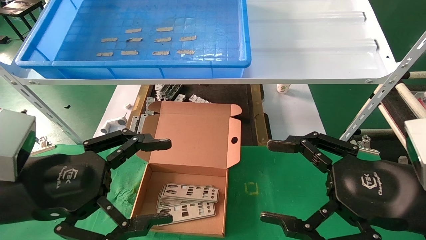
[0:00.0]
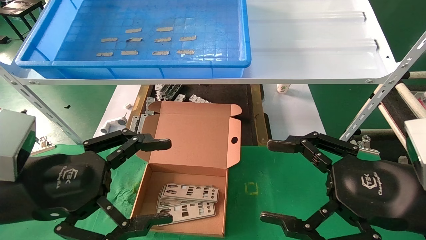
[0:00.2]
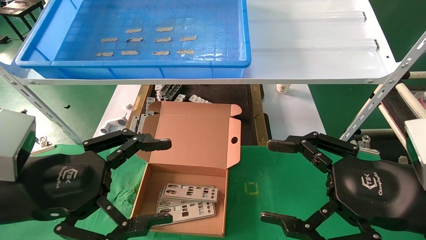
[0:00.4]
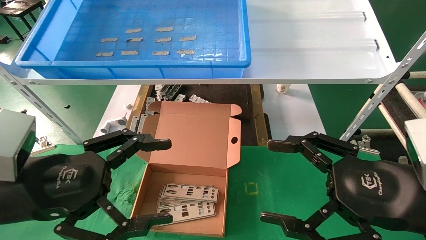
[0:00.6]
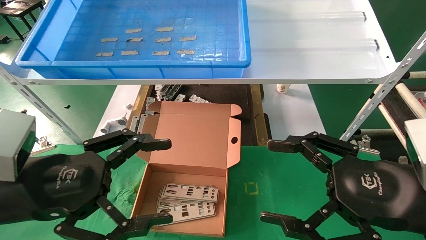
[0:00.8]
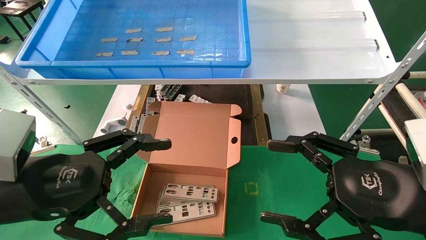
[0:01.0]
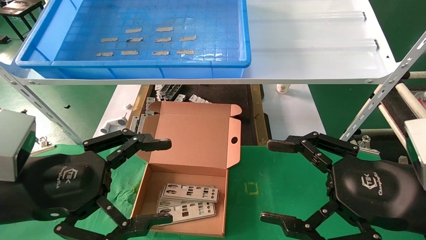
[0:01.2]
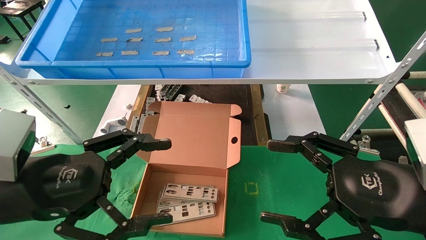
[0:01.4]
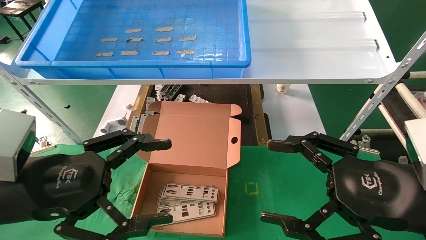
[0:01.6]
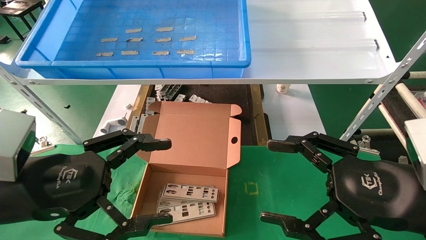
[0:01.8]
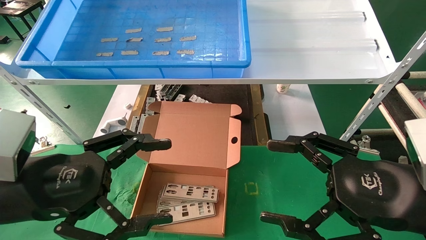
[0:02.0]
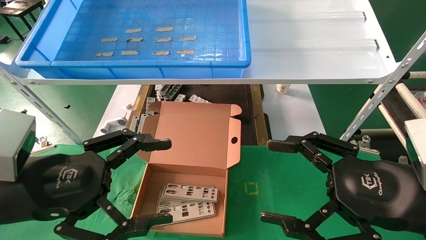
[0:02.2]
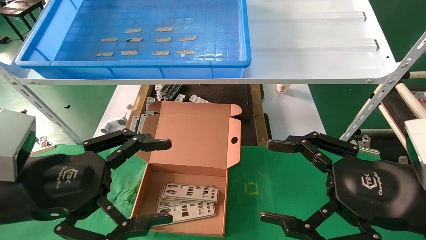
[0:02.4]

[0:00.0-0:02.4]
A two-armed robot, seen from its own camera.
Task of the whole recording: pick up the parts on the tray and put them in the cardboard box.
0:00.0 to 0:02.4: Both grippers stay about where they are.

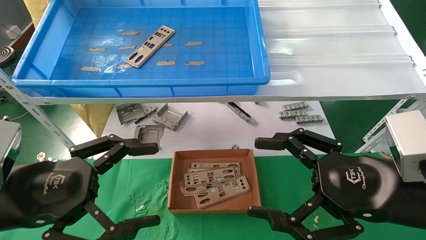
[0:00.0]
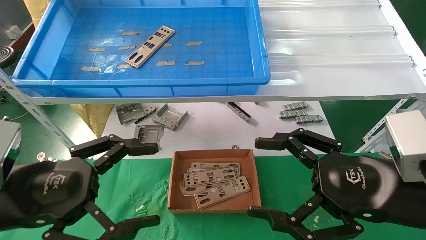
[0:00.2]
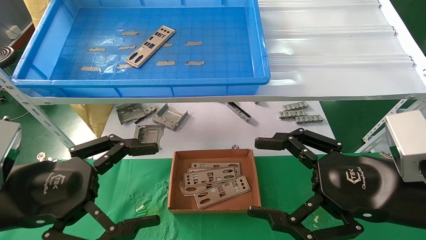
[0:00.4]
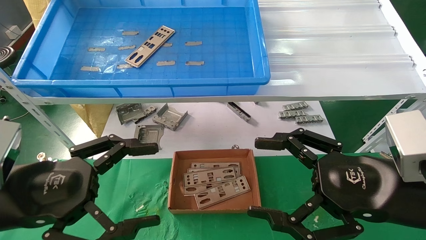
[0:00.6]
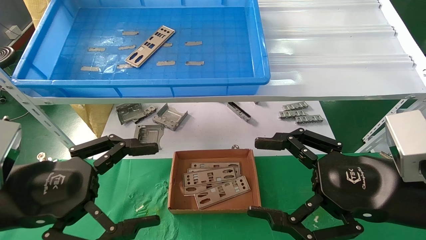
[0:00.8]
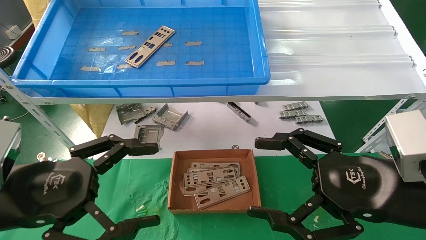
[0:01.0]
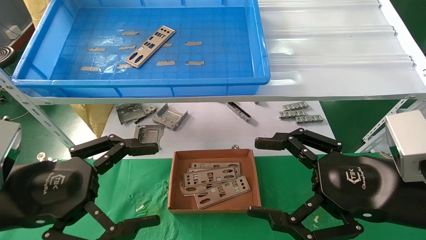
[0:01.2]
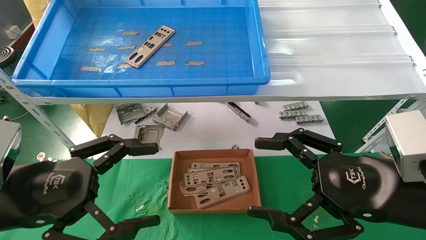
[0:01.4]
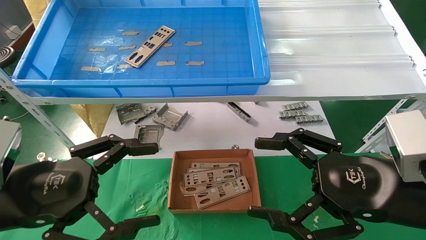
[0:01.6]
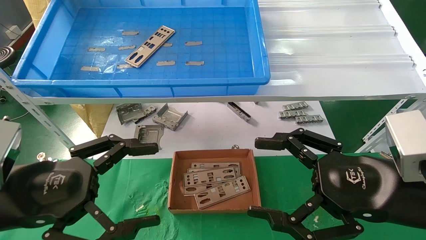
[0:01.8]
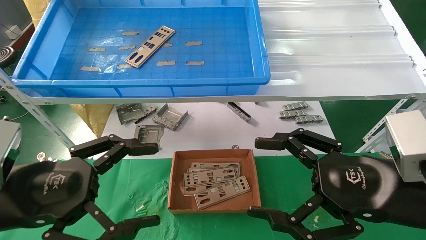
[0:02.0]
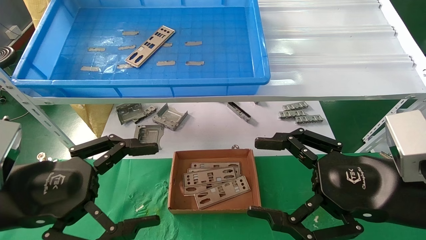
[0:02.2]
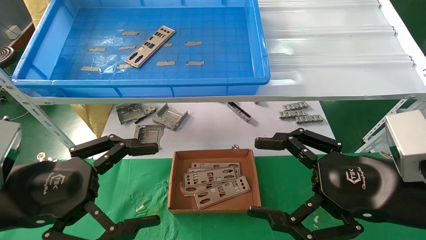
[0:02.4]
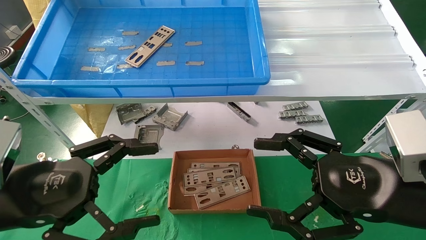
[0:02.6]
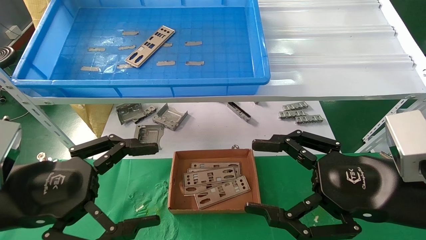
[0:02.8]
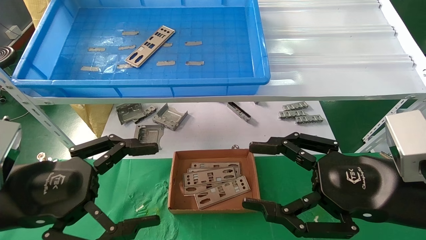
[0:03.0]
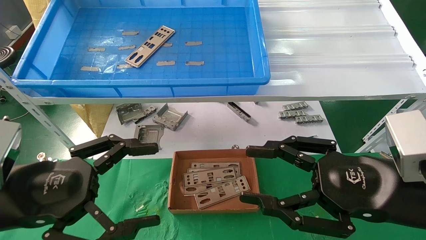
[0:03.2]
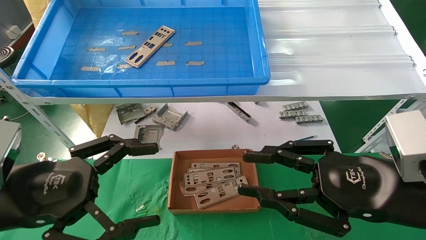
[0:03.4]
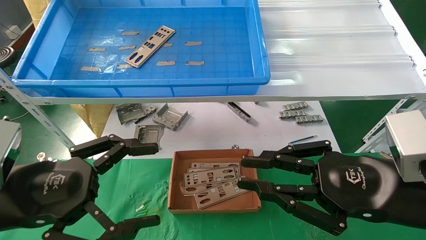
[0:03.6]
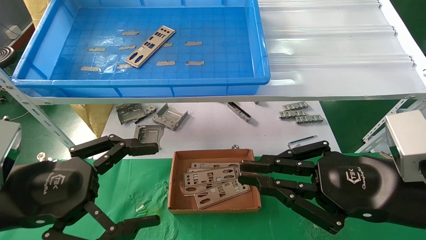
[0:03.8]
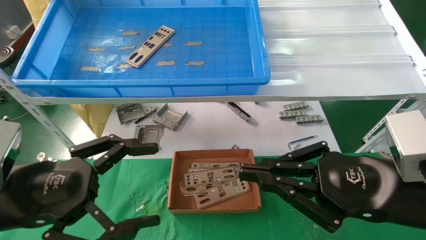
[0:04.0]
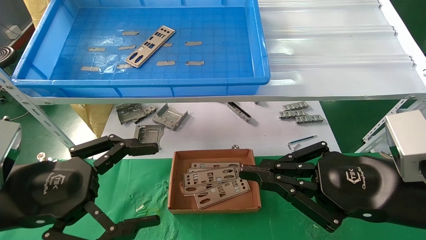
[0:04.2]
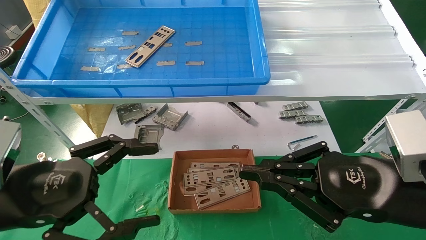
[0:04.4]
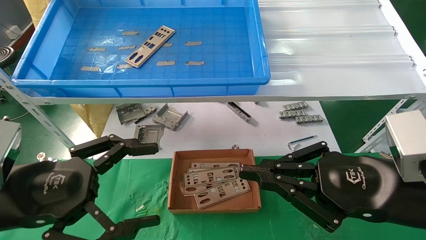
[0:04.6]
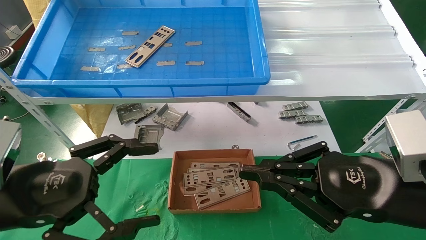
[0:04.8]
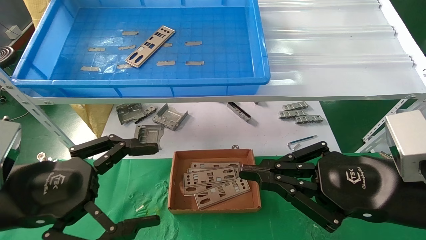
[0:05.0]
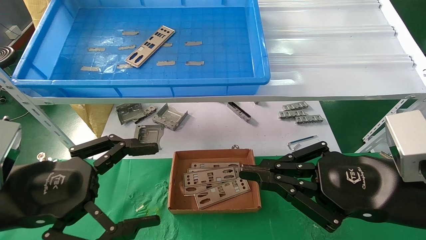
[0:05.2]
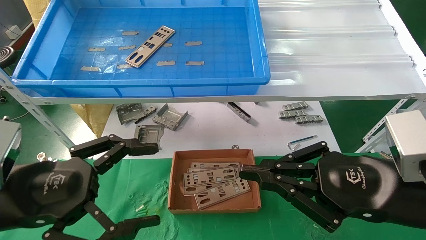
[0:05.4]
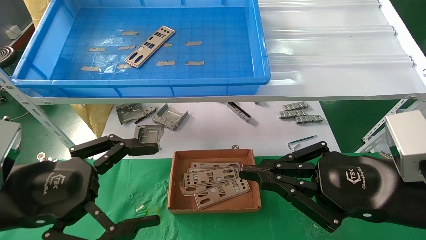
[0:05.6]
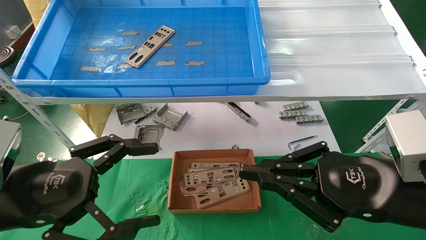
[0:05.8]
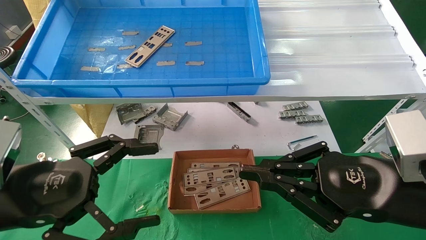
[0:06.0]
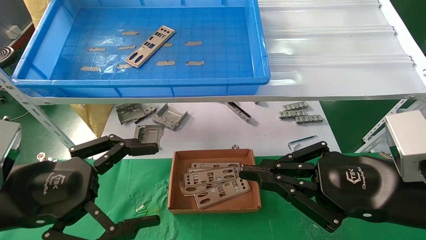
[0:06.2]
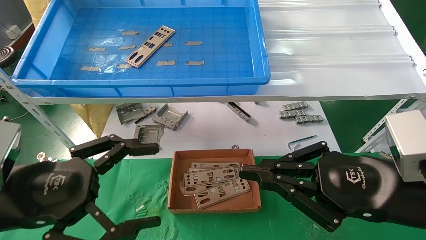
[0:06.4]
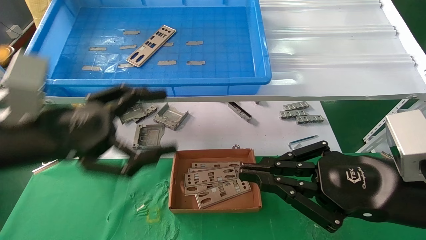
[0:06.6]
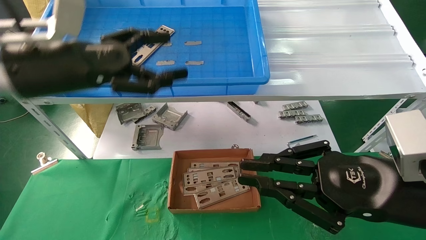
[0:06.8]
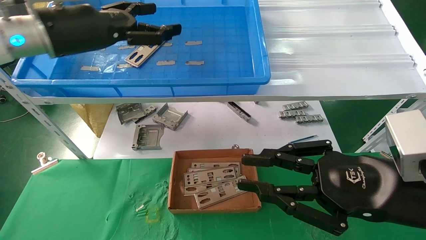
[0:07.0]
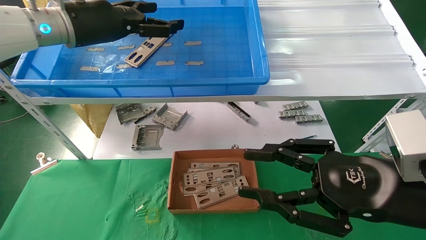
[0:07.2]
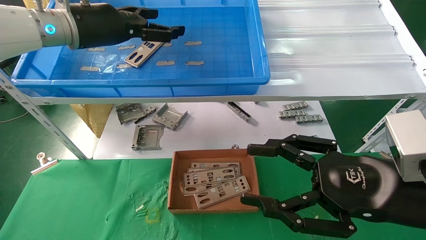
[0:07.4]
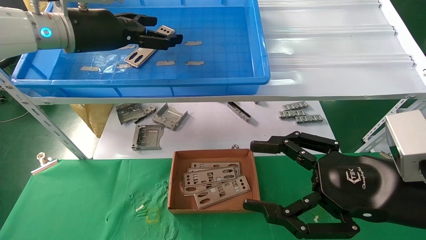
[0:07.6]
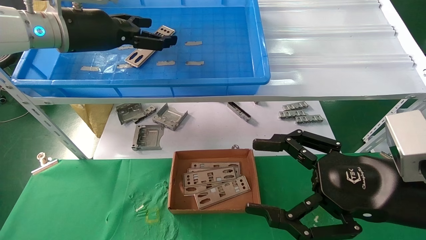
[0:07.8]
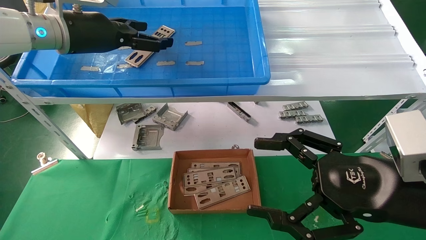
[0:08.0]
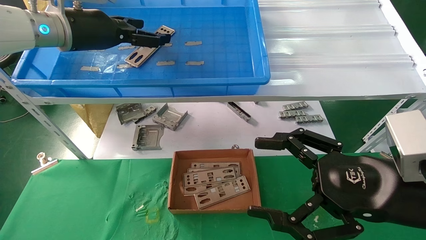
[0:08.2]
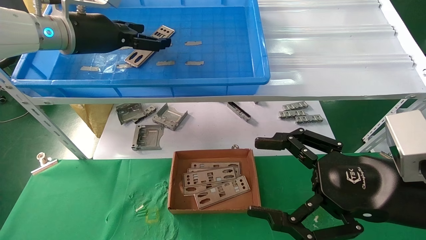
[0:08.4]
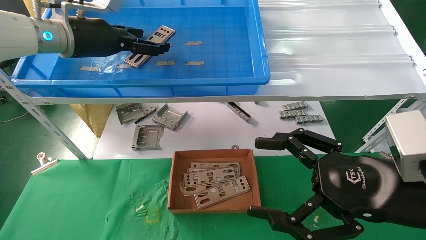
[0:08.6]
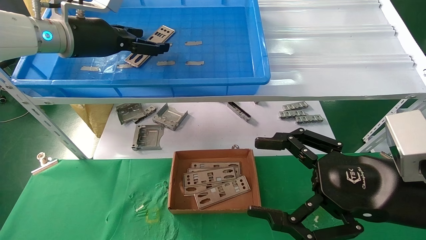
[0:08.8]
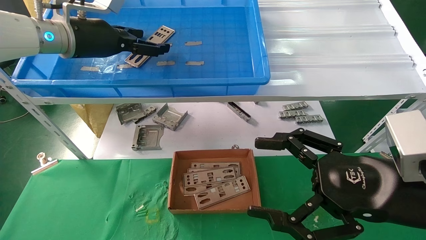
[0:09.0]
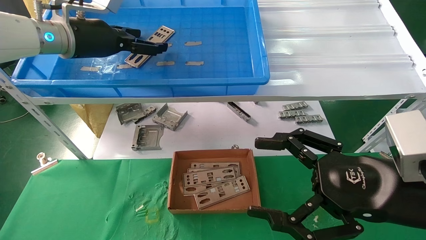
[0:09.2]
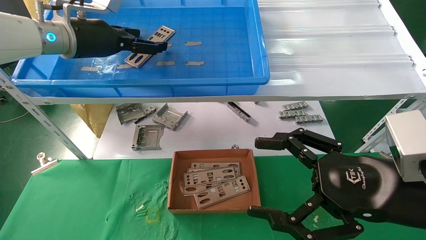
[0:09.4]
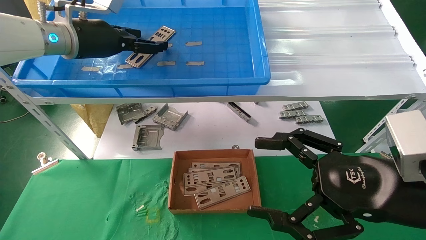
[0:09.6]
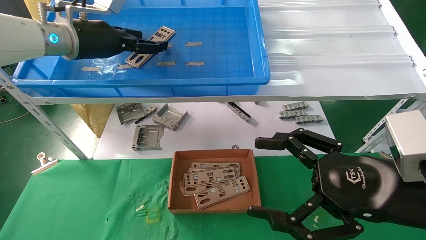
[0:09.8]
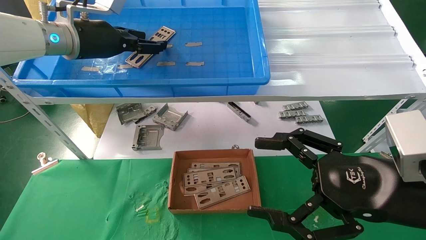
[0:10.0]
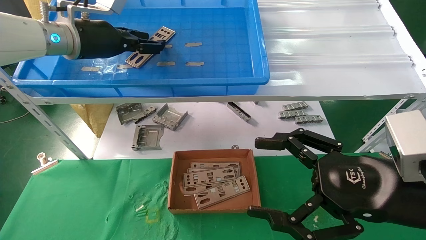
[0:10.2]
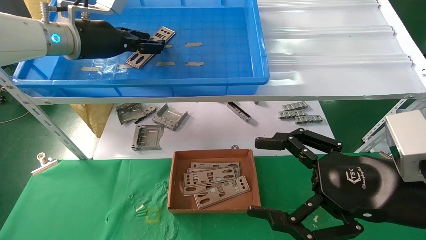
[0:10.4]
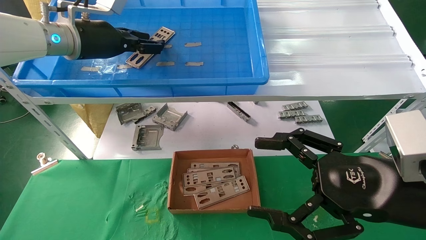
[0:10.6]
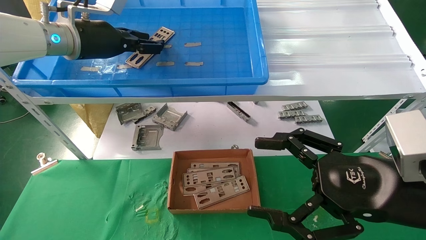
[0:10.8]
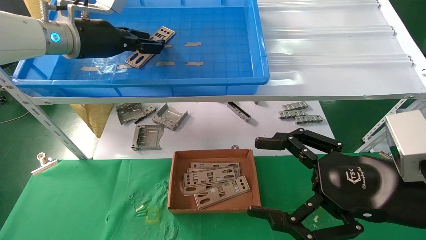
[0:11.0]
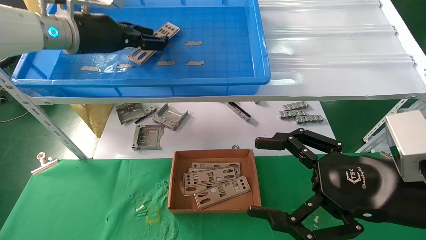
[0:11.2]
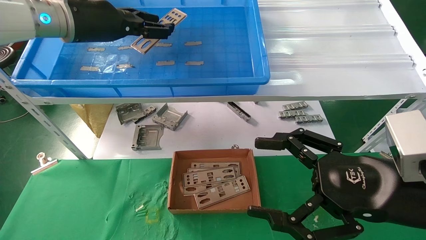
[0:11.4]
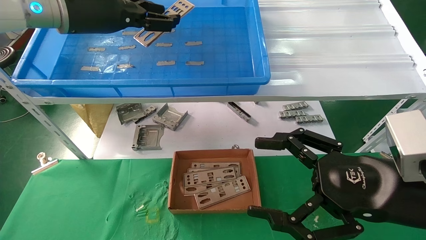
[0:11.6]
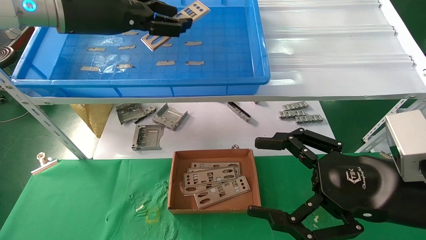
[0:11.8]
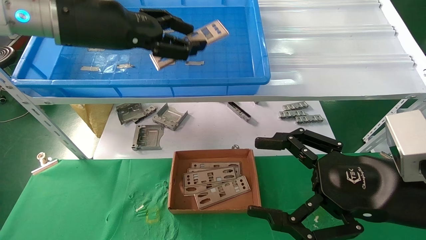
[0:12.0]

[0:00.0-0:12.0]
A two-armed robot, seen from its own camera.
Task of the whole recording: pick up the parts on the tray and put them in the cardboard box.
Step, 0:06.8 to 0:10.4: Pick up the IO bracket from the container box.
0:00.0 to 0:03.0: Neither gripper changes place.
0:03.0 to 0:04.4: The right gripper closes up.
0:04.4 to 0:06.0: Neither gripper changes place.
0:06.0 to 0:07.6: The left gripper moves forward and upward, roughly 30 cm. Meanwhile the right gripper opens its fingers.
0:07.6 to 0:09.0: The grippers stay close to where they were, moving slightly.
0:09.0 to 0:10.4: The left gripper closes.
0:10.4 to 0:12.0: The left gripper shifts some 10 cm backward.

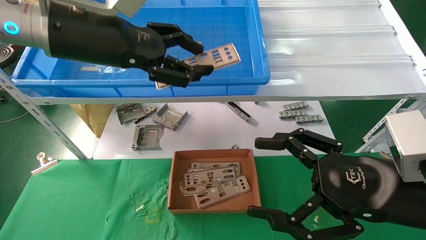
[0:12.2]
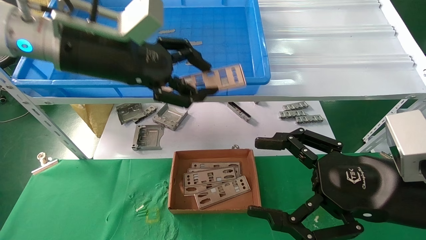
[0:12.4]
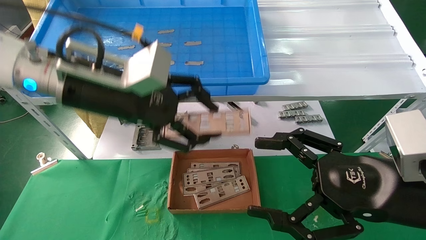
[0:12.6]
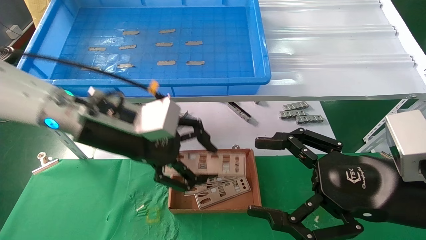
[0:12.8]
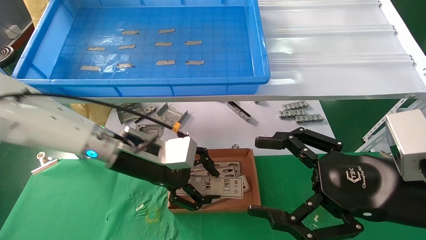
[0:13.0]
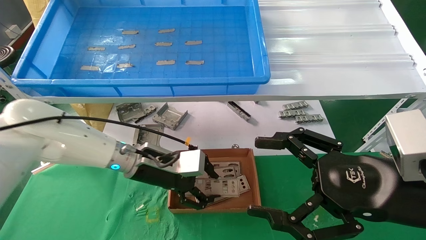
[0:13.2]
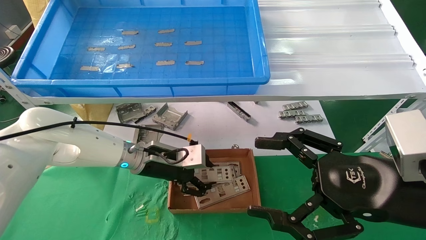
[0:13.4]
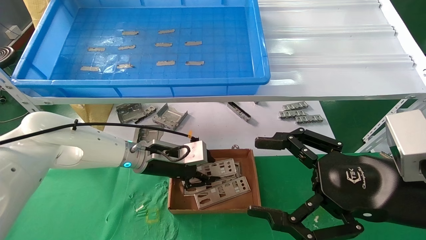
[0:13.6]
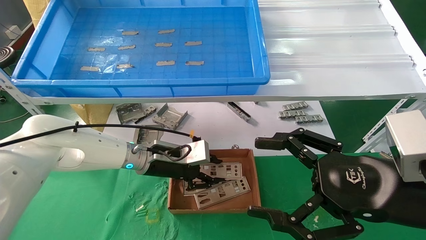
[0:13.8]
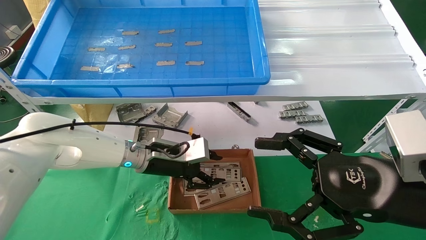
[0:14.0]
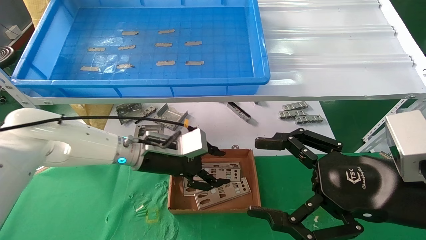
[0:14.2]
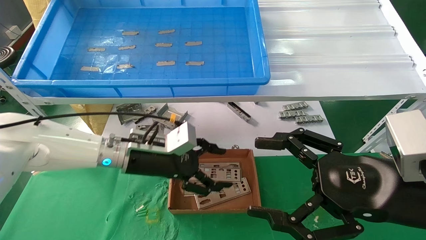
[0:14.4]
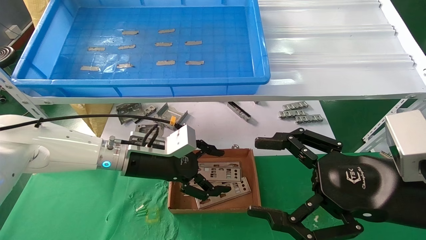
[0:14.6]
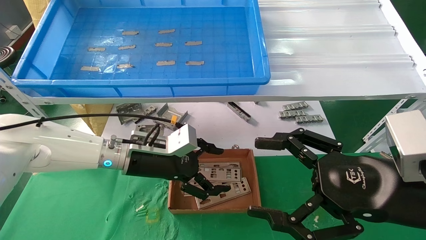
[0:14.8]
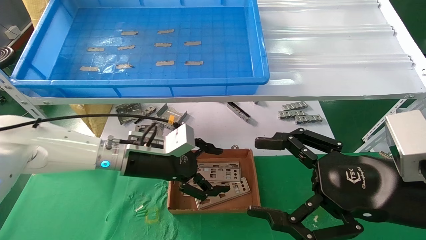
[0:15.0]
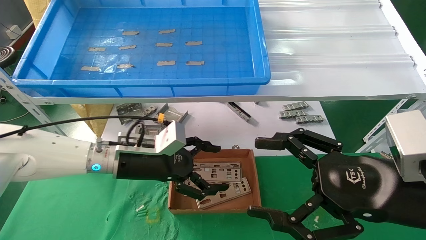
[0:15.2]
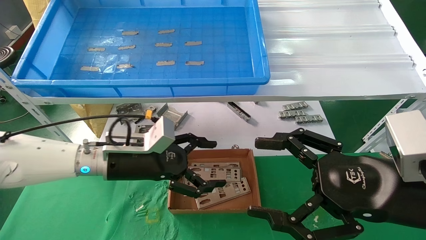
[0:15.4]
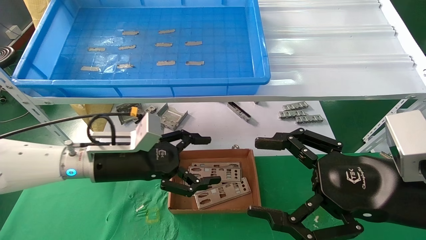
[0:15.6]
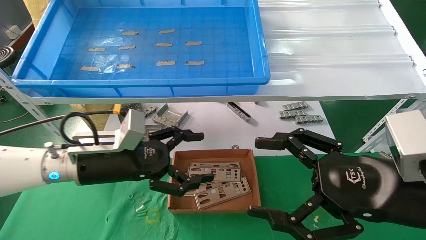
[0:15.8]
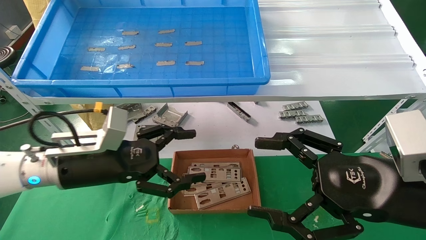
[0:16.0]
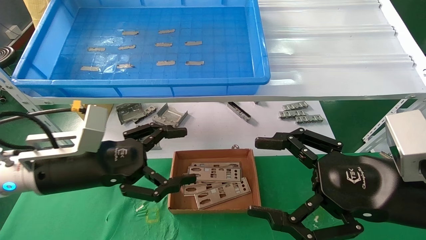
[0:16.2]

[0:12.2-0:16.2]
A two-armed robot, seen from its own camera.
Task of the whole recording: pick up the parts on the tray and put them in the cardboard box.
Step, 0:12.2 to 0:14.2: Place the IO bracket into the ingredient slot.
0:12.2 to 0:13.6: The left gripper travels downward and forward by some 25 cm.
0:13.6 to 0:14.8: The left gripper opens up.
0:14.8 to 0:16.2: The left gripper shifts about 15 cm backward and to the left.
